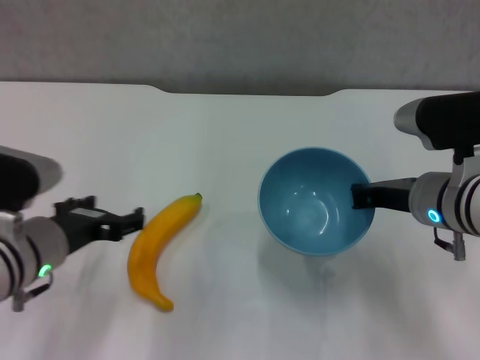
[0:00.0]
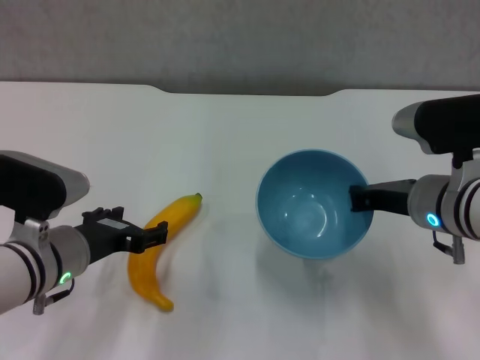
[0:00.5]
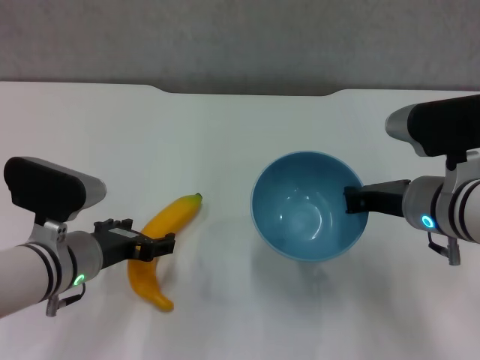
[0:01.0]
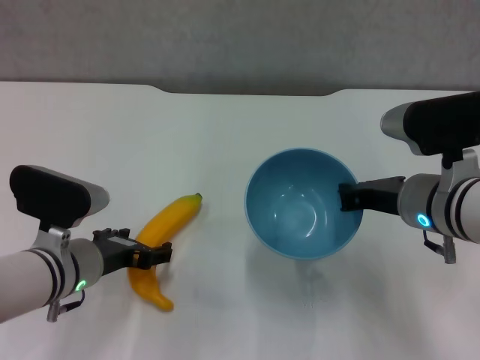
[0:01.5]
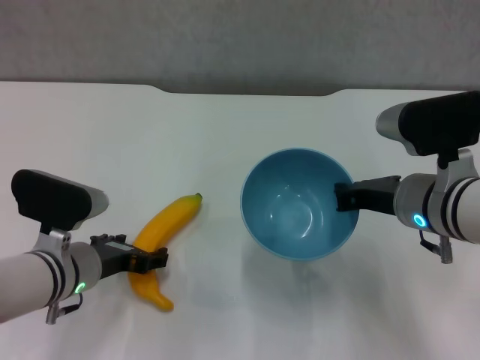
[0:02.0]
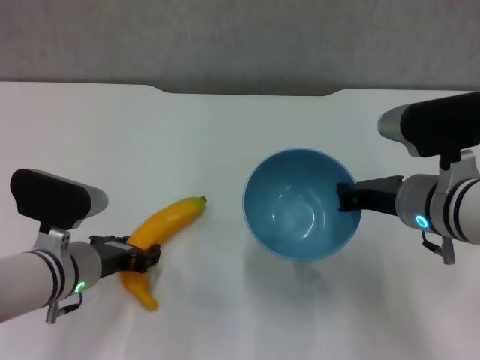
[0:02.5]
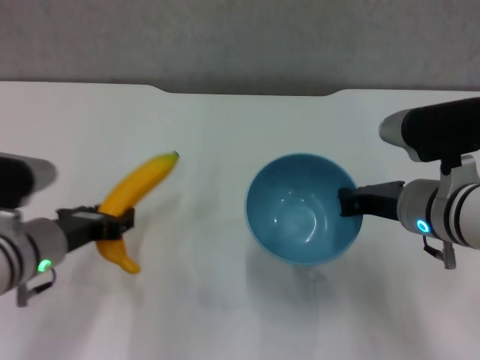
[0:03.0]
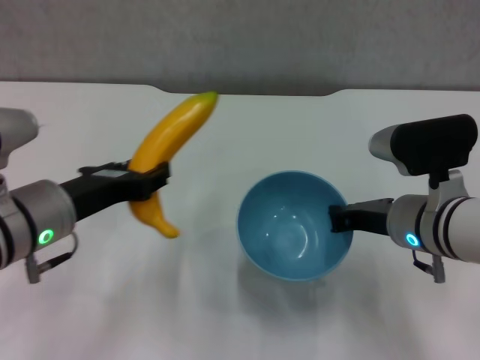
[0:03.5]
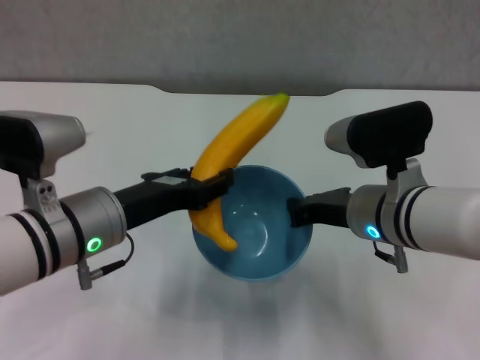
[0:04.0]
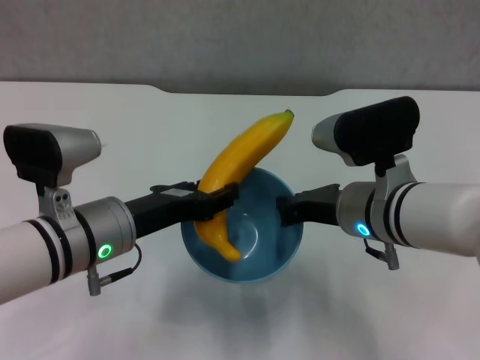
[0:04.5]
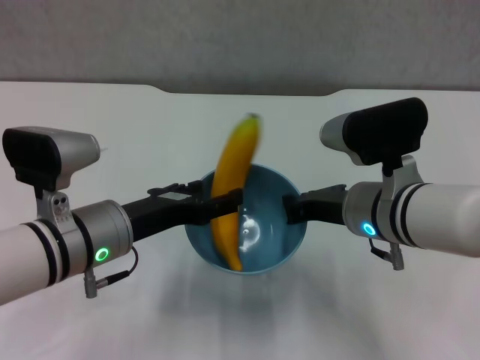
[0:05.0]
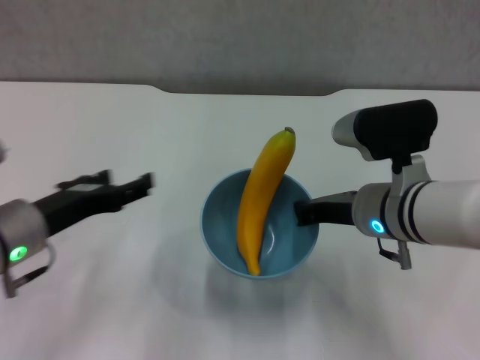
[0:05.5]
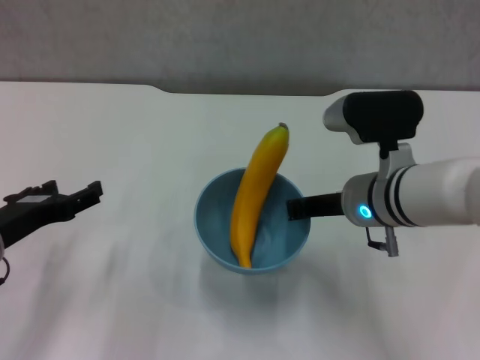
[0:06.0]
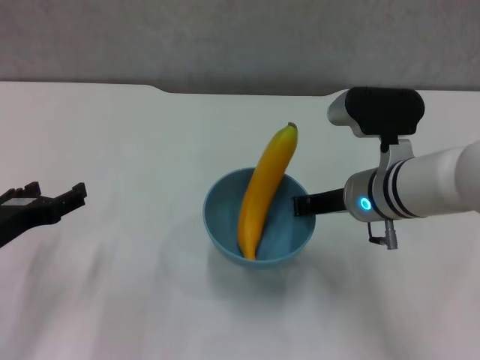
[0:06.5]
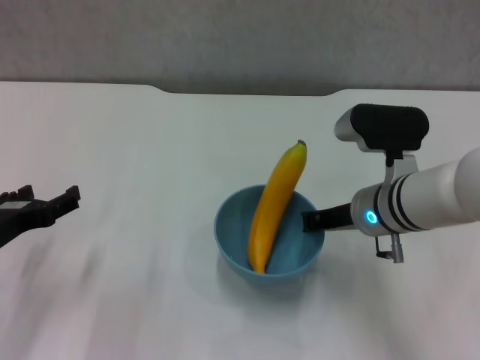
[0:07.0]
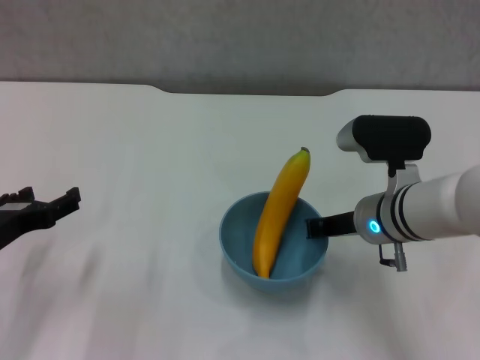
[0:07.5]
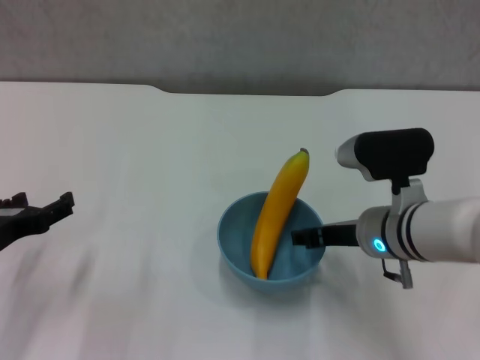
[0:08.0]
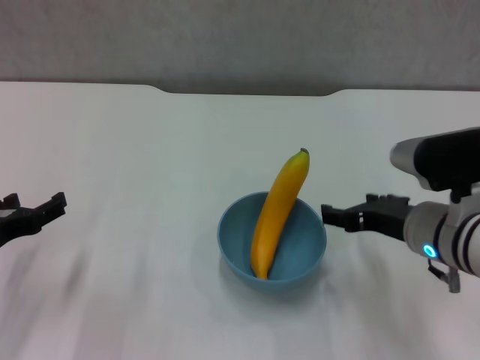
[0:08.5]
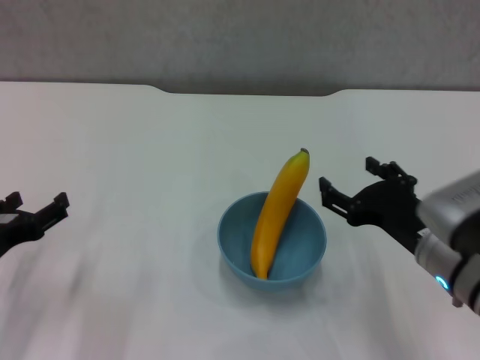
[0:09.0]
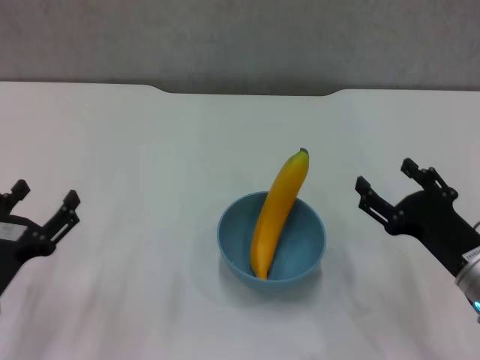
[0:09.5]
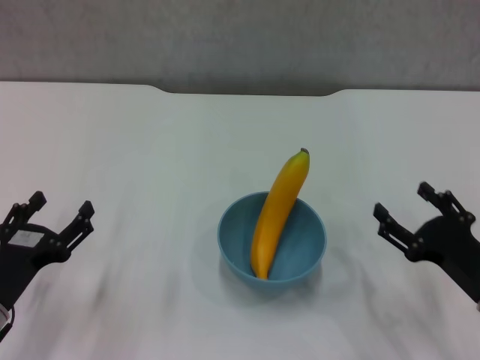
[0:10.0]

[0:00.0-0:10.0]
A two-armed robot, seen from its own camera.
Step, 0:00.5 to 0:02.0: Grasp the banana with left gripper.
Step, 0:03.0 to 0:05.0: Place the banana in the blue bowl with left gripper.
Step, 0:05.5 to 0:08.0: Place the bowl on the table with right gripper.
0:00.0 to 0:02.0: The left gripper heads downward, covering some 5 cm.
0:02.0 to 0:04.0: The left gripper moves upward, roughly 10 cm, and closes.
0:04.0 to 0:06.0: The left gripper shifts approximately 10 cm to the left, and opens up.
0:08.0 to 0:10.0: The left gripper heads downward, covering about 5 cm. Meanwhile the right gripper heads to the right, backward and downward, covering some 15 cm, and opens.
